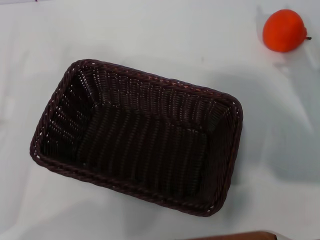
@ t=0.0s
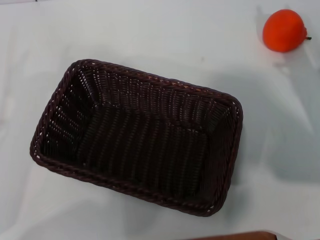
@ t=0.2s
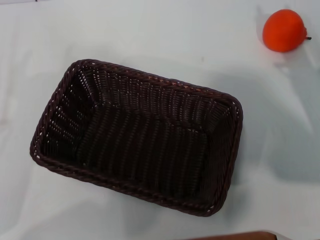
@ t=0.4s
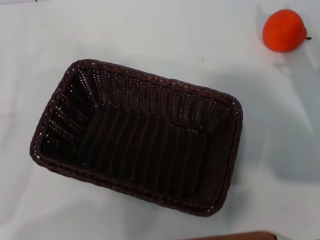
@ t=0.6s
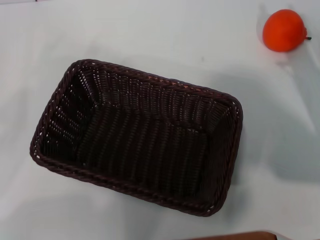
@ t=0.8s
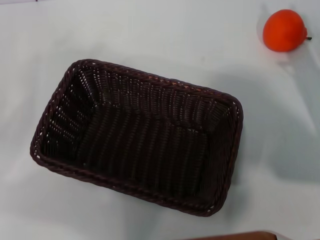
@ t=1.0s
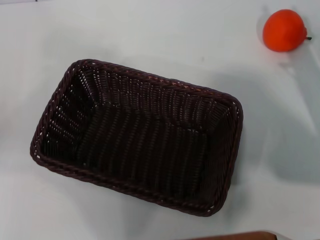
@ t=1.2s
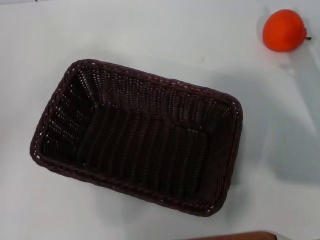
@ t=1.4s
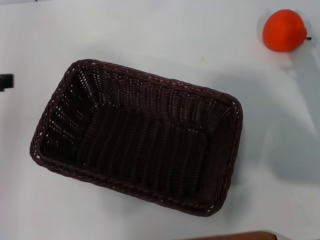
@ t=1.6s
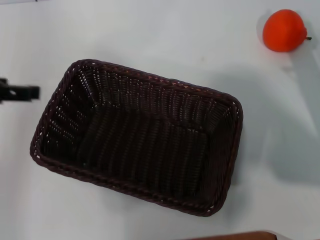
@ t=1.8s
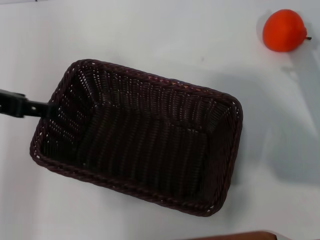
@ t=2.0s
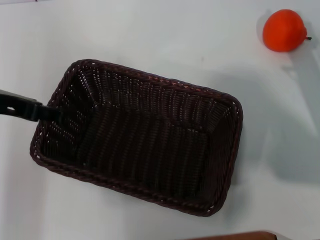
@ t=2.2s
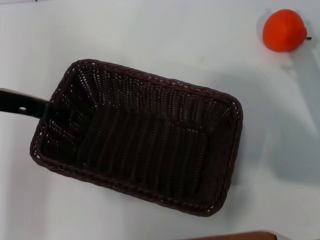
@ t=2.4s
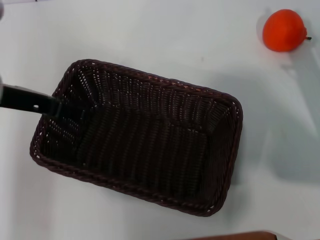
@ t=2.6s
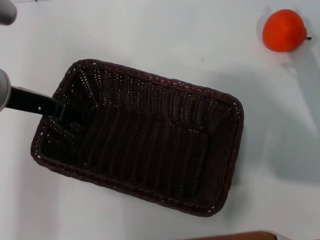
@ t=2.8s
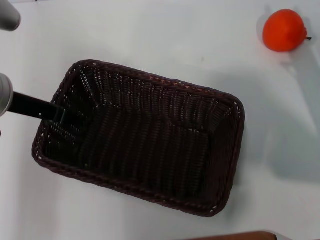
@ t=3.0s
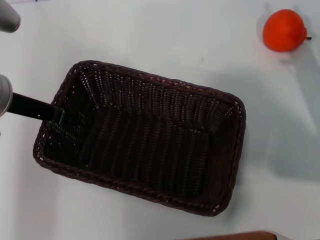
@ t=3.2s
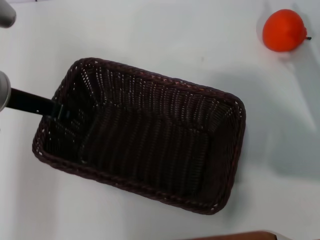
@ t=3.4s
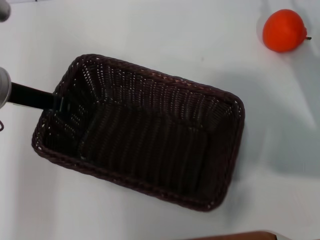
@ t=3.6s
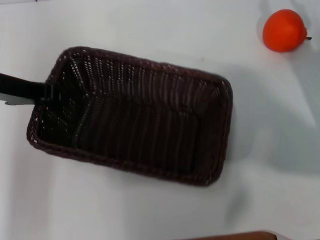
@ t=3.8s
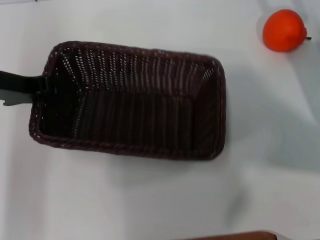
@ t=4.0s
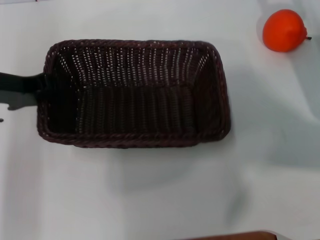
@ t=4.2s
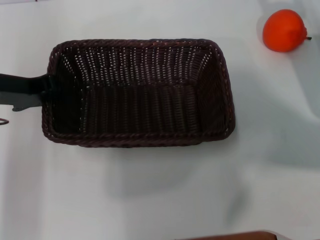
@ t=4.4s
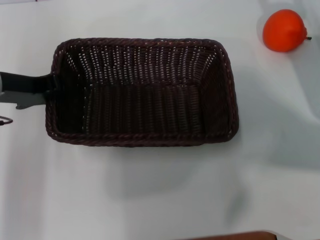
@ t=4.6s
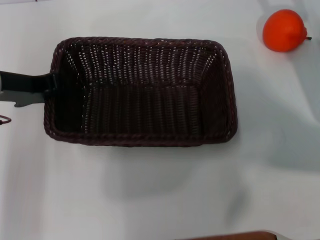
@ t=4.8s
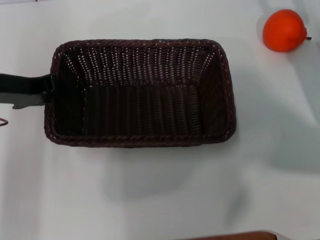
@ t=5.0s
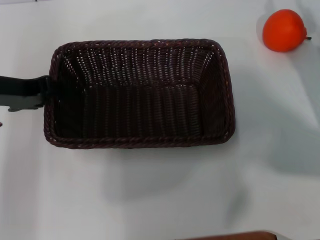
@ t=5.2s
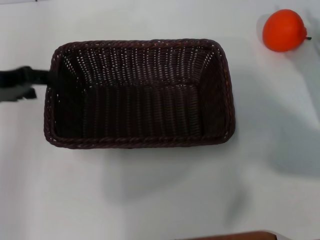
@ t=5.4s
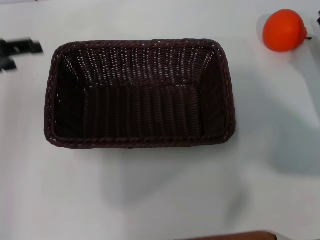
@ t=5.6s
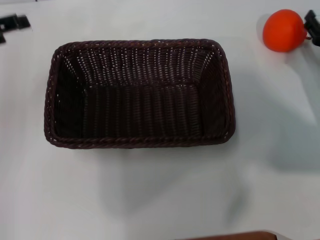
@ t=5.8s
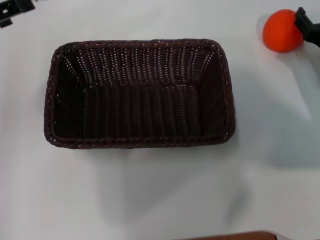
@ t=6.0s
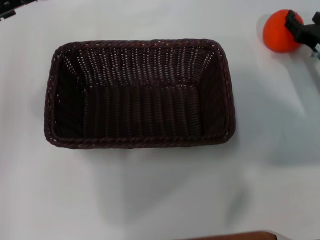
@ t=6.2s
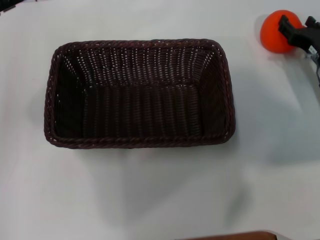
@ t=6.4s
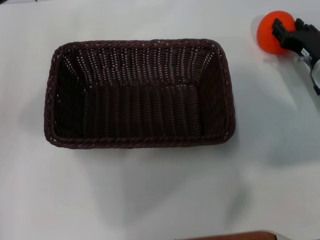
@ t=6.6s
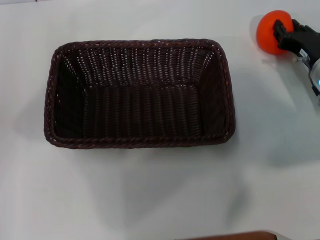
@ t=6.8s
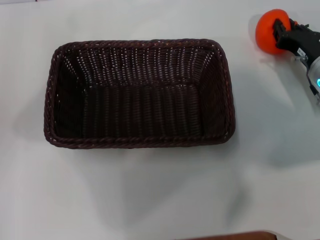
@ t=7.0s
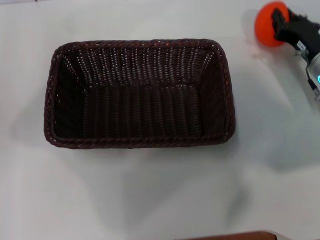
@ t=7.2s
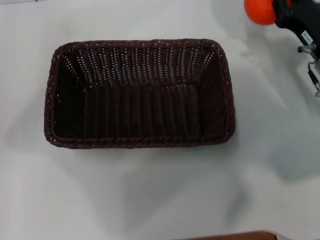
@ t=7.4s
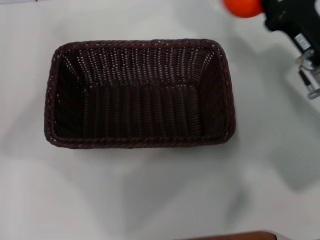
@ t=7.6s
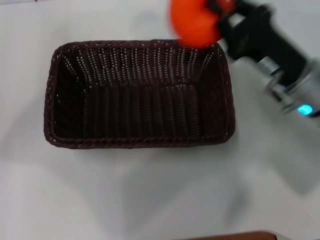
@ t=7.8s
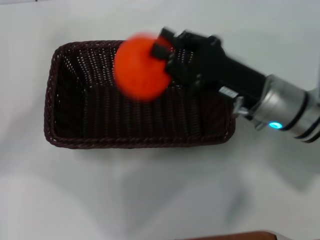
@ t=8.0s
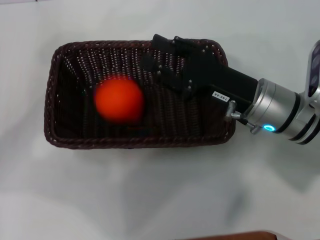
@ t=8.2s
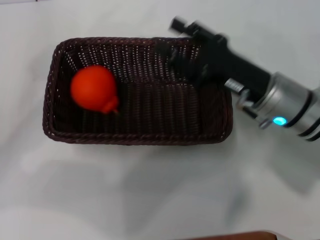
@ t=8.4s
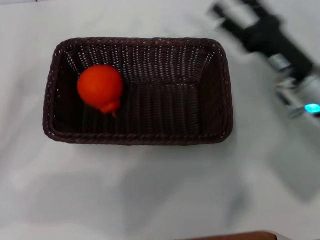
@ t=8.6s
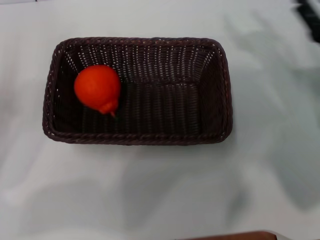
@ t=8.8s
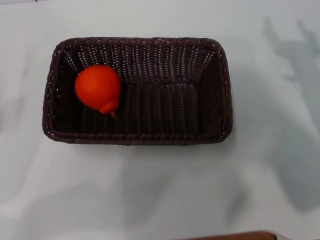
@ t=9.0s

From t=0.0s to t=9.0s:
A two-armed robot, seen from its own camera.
Task of the whole recording: the left gripper pick up the black basket and place it horizontally in the middle of the table, the right gripper pick up the orange and place it into the black basket.
Step, from t=0.0s to t=3.6s: Pick up the dark basket with the left gripper.
Step, from t=3.8s to t=5.4s: Place the dark basket in the center of view with the left gripper.
Step, from t=5.6s to t=7.0s: Pick up the orange with the right gripper.
Step, from t=7.4s to t=8.2s: Place the orange into the light basket with the right gripper.
From t=0.0s to t=1.6s: The left gripper moves upward and forward, some 20 cm.
From t=1.6s to t=3.0s: The left gripper moves to the right and downward, roughly 10 cm.
From t=3.0s to t=4.4s: The left gripper closes its fingers. Meanwhile the right gripper heads forward, covering some 5 cm.
From t=4.4s to t=6.0s: The left gripper shifts approximately 5 cm to the left, and opens.
From t=6.0s to t=7.6s: The right gripper goes approximately 10 cm to the left and upward, and closes up.
From t=7.6s to t=9.0s: The left gripper shifts some 15 cm downward and backward. Meanwhile the right gripper travels to the right and backward by approximately 10 cm, and opens its fingers.
